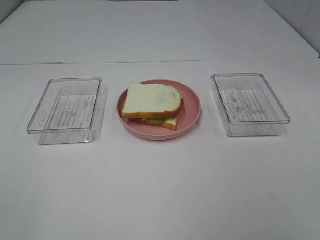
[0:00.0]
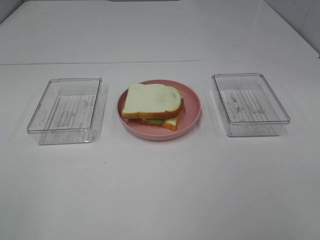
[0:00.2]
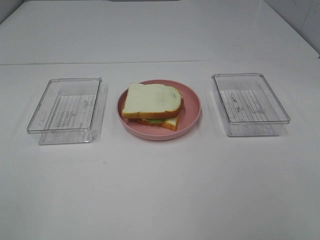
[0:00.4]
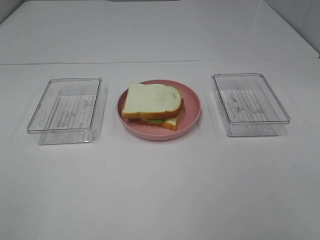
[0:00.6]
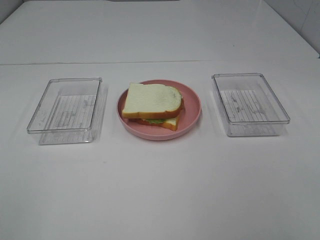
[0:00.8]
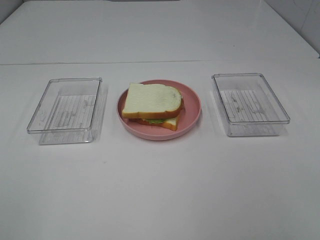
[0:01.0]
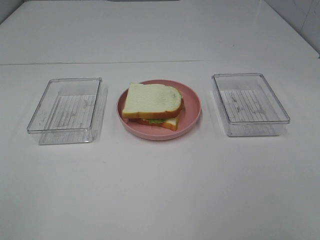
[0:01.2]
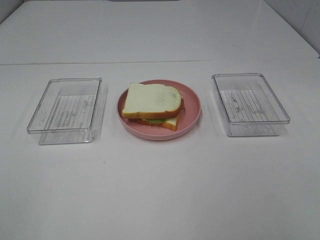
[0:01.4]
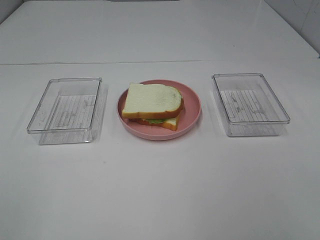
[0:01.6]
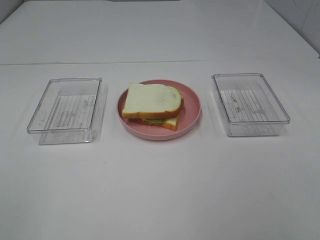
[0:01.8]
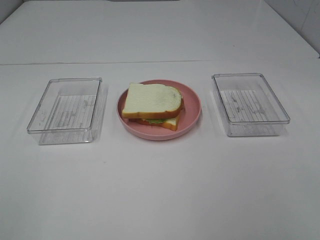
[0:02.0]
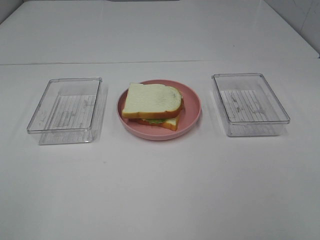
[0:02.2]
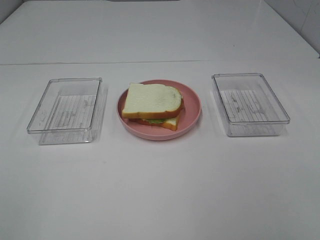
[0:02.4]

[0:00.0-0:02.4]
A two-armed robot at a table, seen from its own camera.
Task of the whole recording: Make sandwiches.
0:01.2 to 0:02.4: Both grippers stay put.

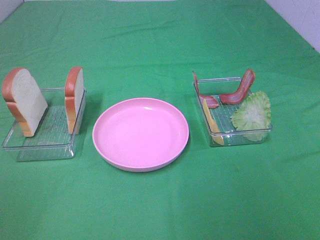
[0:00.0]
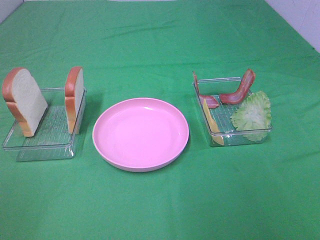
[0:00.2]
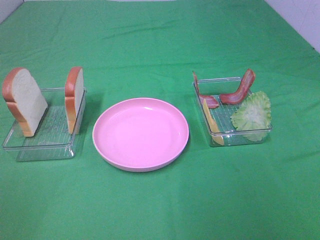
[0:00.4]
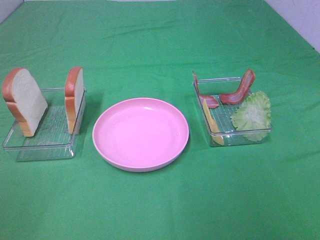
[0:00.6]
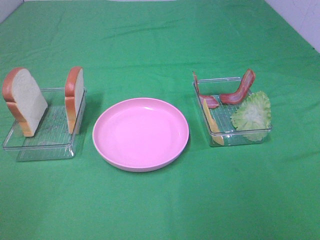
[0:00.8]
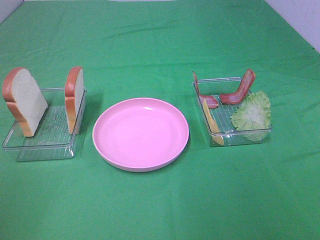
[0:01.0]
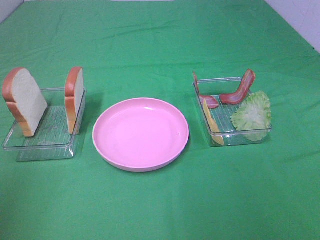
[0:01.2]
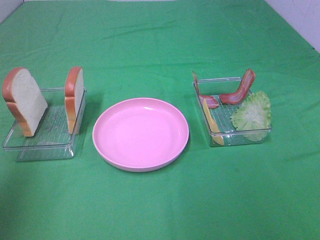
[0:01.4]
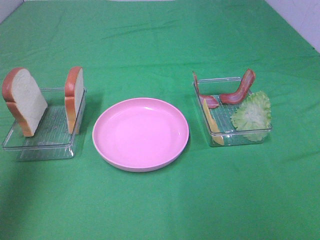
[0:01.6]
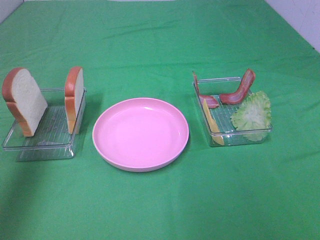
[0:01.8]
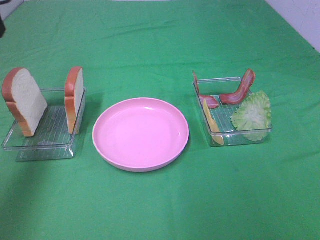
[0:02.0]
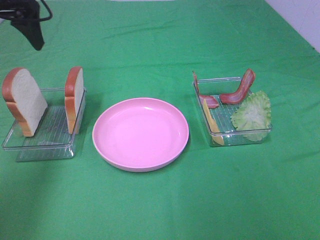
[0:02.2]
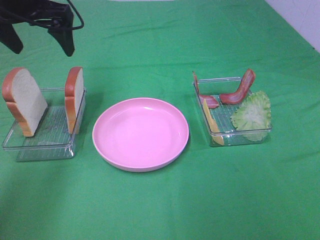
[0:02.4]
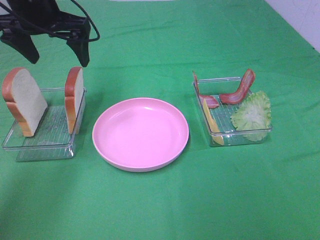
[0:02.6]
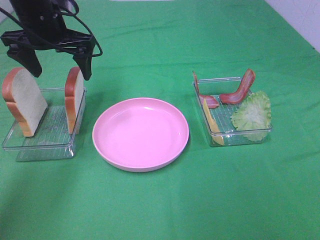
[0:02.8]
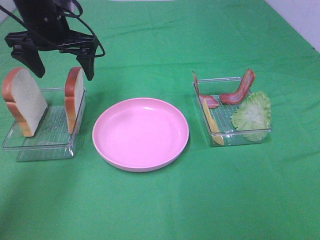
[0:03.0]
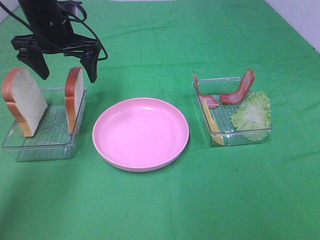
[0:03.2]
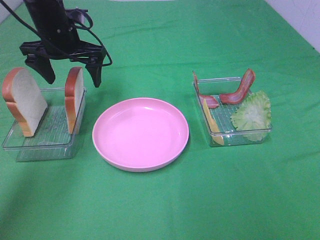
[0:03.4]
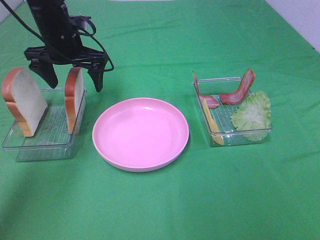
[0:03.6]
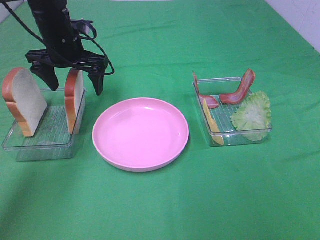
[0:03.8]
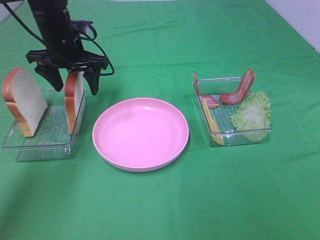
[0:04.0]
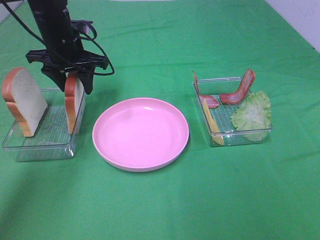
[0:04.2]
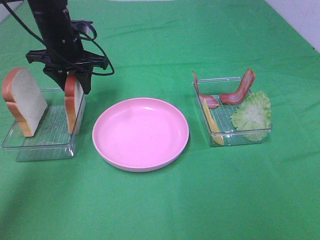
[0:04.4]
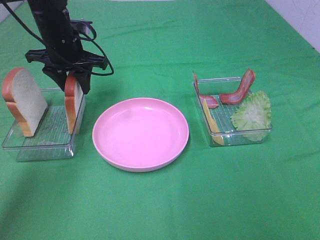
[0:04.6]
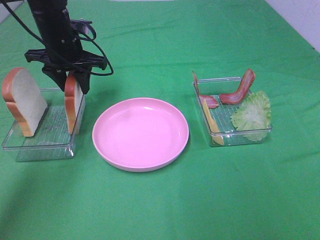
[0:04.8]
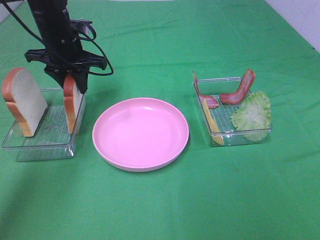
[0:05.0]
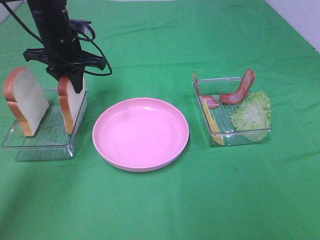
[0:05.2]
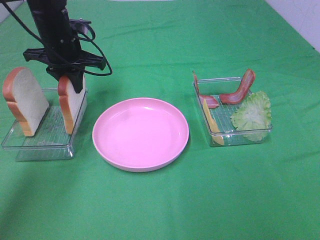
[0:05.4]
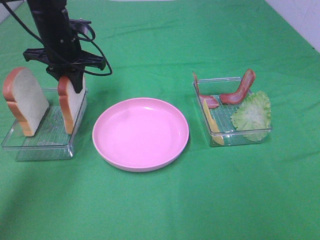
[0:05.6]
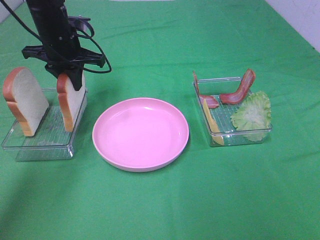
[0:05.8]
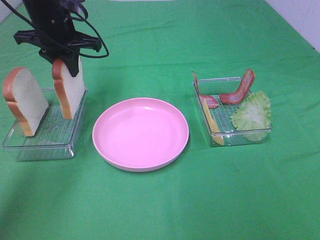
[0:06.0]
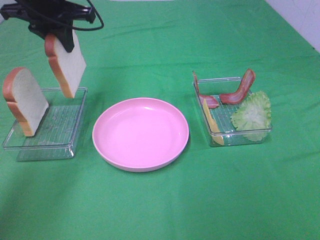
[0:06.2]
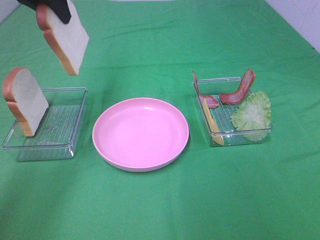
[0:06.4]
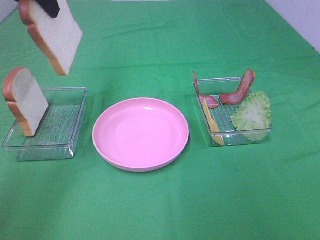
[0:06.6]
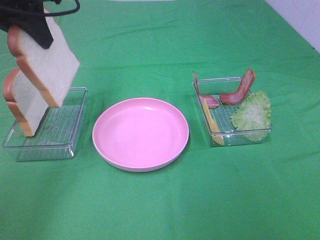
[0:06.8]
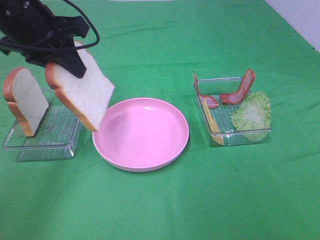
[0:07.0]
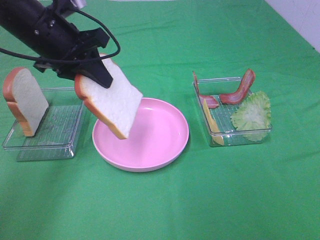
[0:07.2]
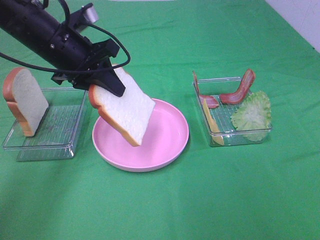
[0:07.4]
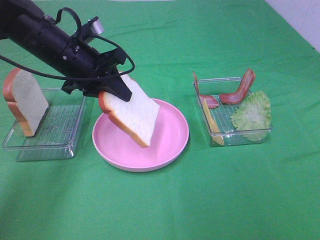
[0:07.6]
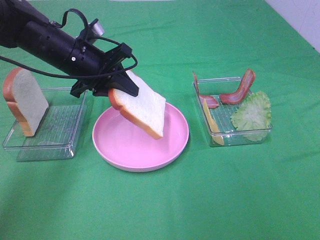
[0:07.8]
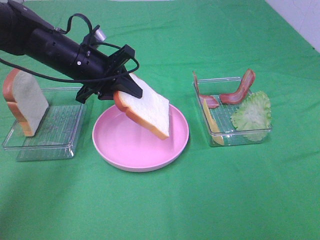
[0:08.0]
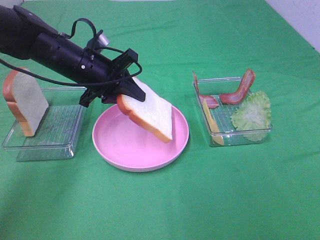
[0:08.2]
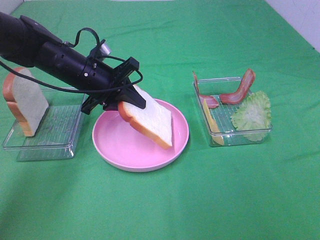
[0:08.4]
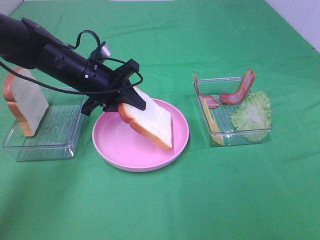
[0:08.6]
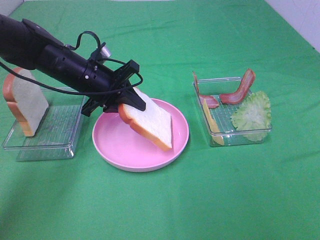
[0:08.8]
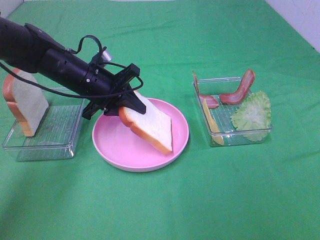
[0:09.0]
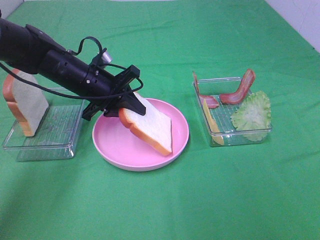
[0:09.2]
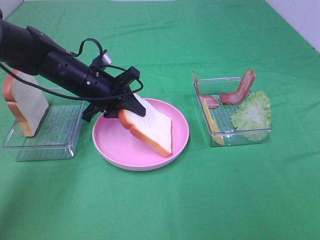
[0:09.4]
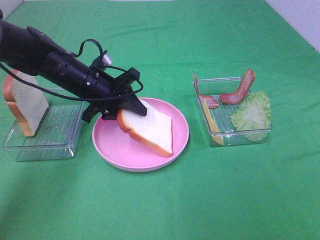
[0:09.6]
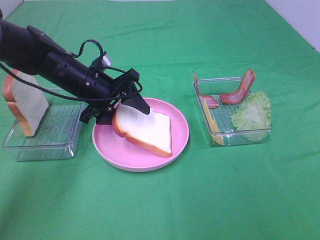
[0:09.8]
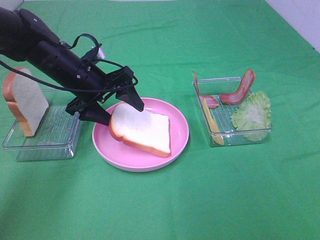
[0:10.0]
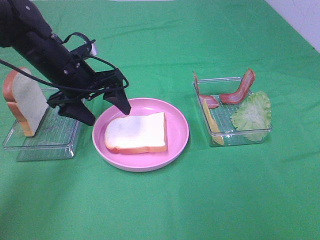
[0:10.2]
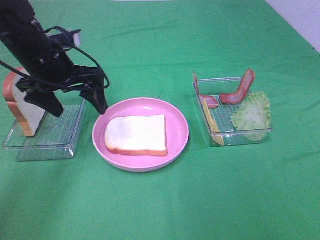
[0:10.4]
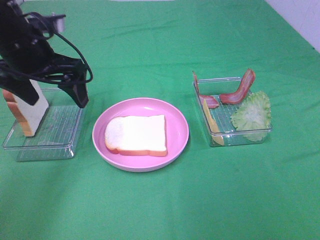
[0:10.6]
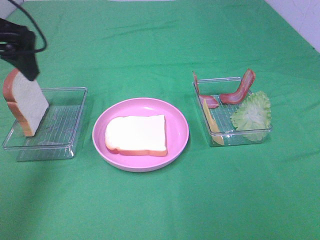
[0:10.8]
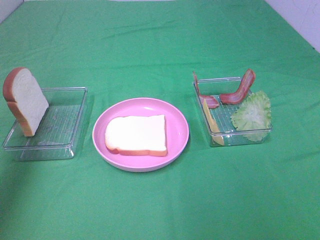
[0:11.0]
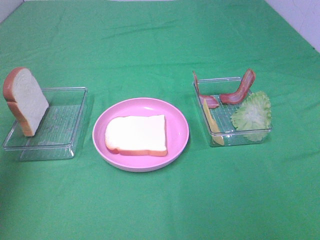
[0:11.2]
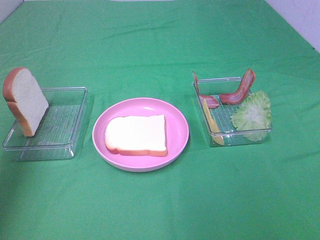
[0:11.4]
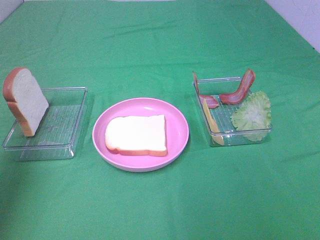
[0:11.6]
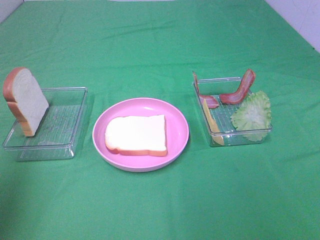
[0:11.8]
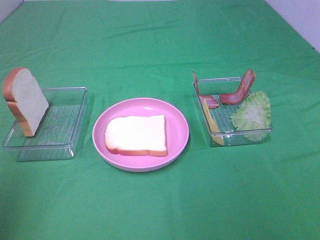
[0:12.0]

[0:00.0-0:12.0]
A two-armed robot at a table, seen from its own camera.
Task of the whole recording: Make sandwiches.
Step, 0:00.0 to 0:05.6: Left hand:grab the bread slice.
Step, 0:05.8 to 0:10.2: Left hand:place the bread slice on the plate.
0:00.0 to 0:01.6: The left gripper heads forward, covering some 25 cm.
0:01.6 to 0:03.0: The left gripper travels forward, downward and to the right by about 25 cm.
0:03.0 to 0:04.4: The left gripper ends up approximately 5 cm from where it was, and closes.
0:04.4 to 0:06.0: There are only small adjustments of the grippers.
0:06.0 to 0:07.6: The left gripper heads backward, covering approximately 5 cm, and moves roughly 15 cm upward and comes back.
0:07.6 to 0:09.0: The left gripper shifts approximately 5 cm downward.
0:09.0 to 0:10.4: The left gripper moves upward, some 5 cm, and opens up.
0:10.4 to 0:12.0: The left gripper shifts about 35 cm backward, to the left and upward.

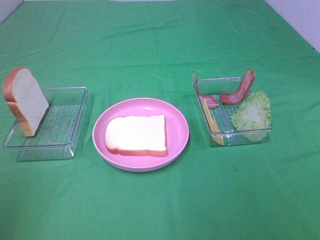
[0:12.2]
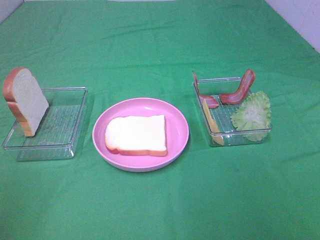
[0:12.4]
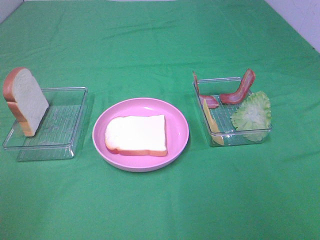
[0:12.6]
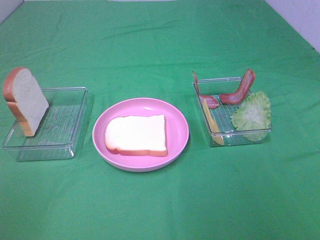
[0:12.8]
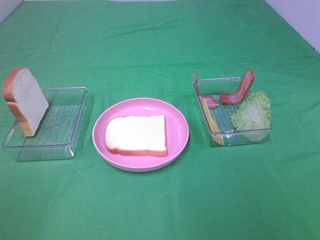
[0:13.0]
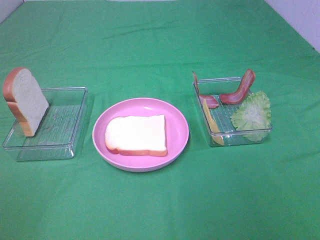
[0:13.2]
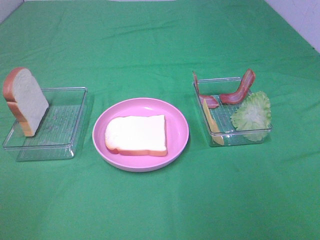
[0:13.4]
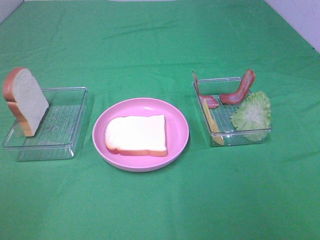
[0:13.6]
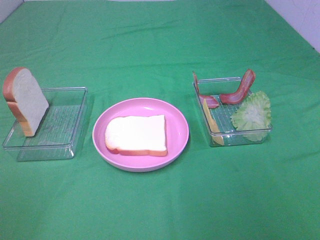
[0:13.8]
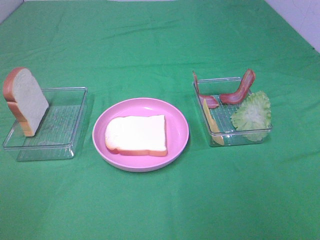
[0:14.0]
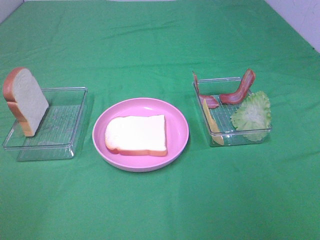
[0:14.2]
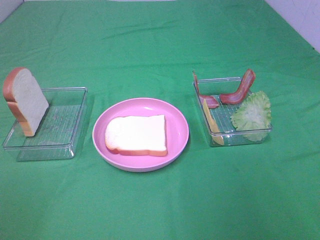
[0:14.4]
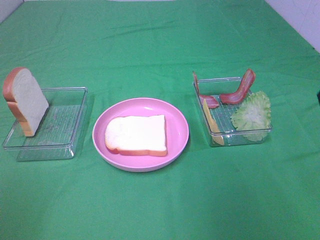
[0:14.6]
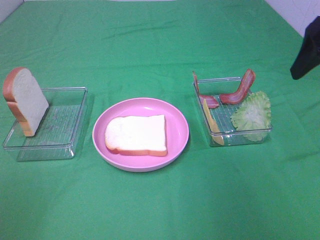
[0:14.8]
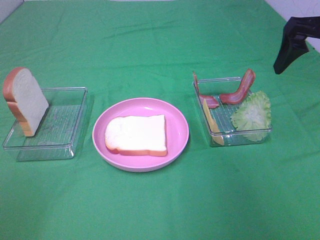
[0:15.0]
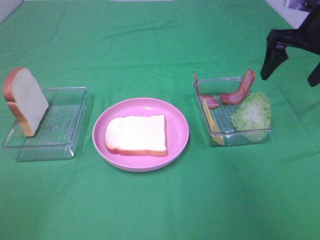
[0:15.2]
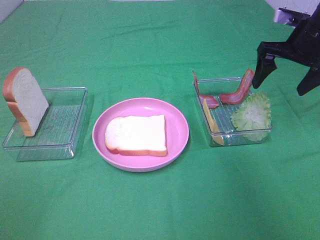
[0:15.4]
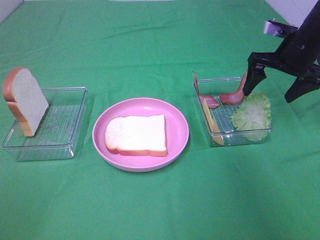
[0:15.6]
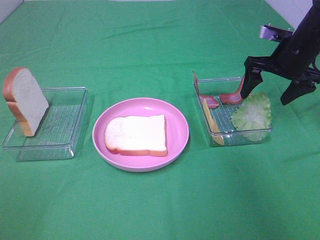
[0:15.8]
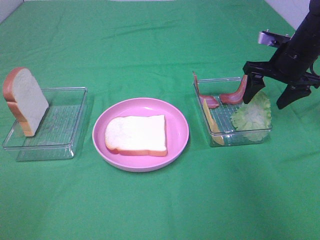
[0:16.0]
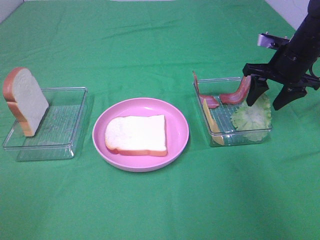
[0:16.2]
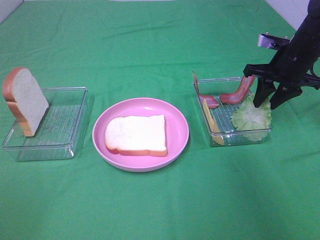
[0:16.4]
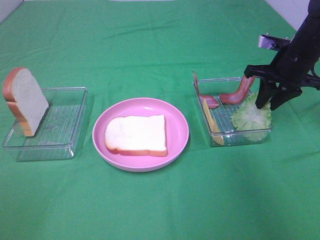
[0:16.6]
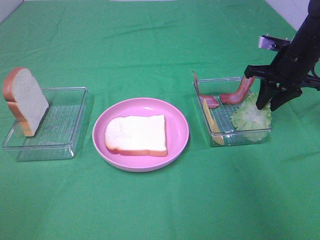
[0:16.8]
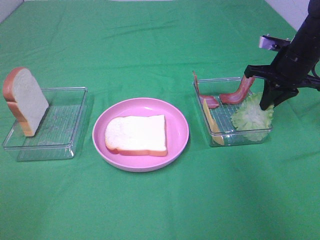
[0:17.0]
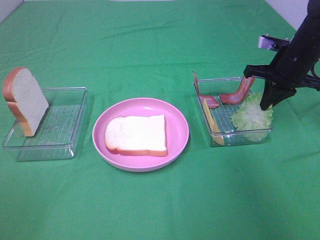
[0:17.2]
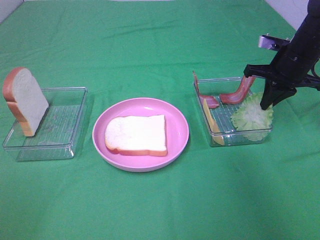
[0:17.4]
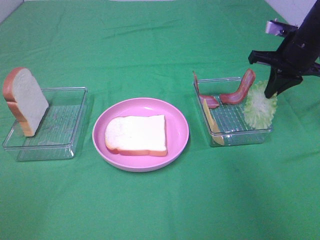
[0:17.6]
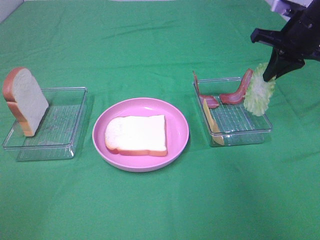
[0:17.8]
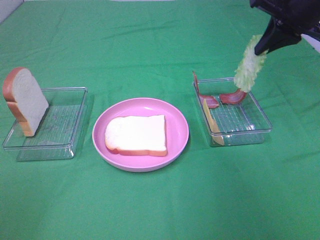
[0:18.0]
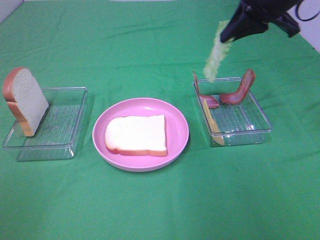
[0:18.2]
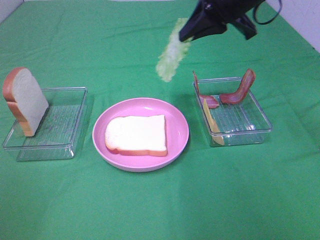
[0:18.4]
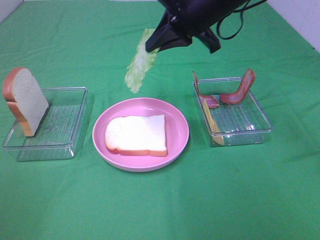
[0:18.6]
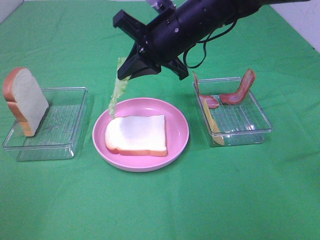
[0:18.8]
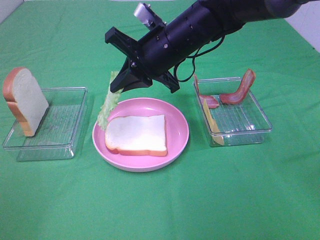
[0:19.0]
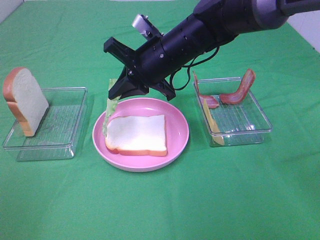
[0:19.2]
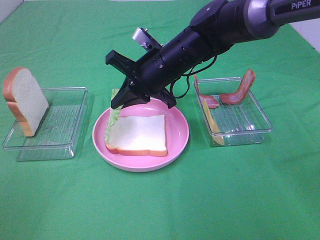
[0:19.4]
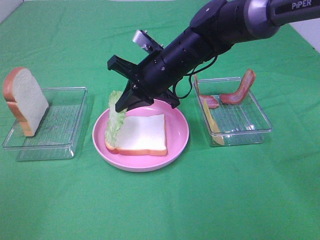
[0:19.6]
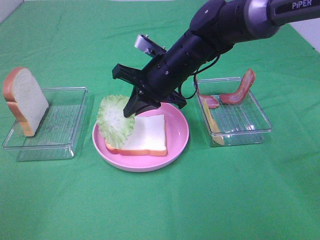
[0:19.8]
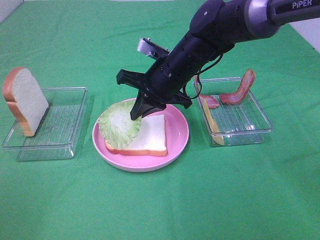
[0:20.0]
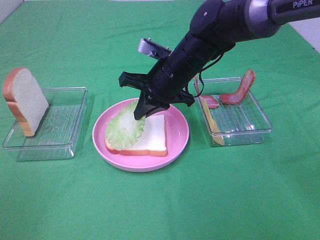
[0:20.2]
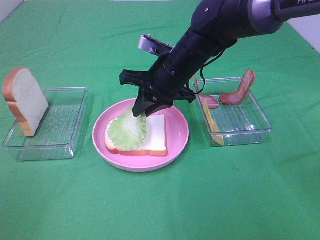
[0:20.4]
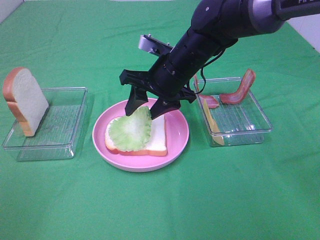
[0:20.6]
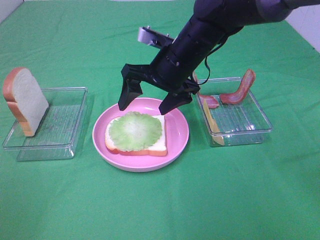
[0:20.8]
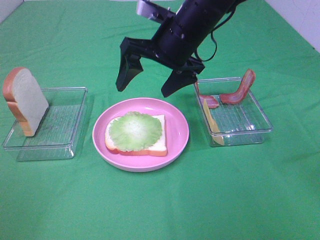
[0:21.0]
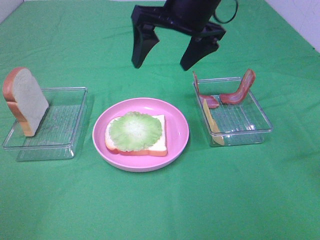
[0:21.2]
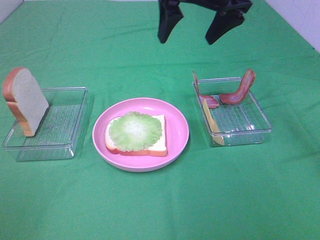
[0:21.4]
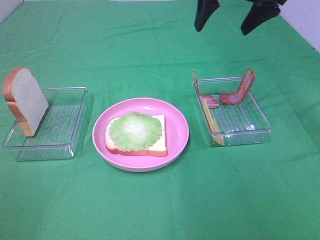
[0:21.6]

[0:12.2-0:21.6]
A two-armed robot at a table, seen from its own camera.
Task of the whole recording: Make sandwiches.
Step, 0:12.2 to 0:17.4: Right hand:grab the lettuce slice.
Step, 0:17.6 to 0:20.6: Right hand:place the lettuce slice on the bread slice.
0:13.8 to 0:15.4: The right gripper shifts about 40 cm forward.
0:15.4 to 0:17.0: The right gripper shifts roughly 5 cm downward, and closes.
0:17.0 to 0:18.4: The right gripper goes roughly 20 cm to the left and upward.
0:18.4 to 0:20.0: The right gripper shifts roughly 15 cm downward and to the left.
0:20.0 to 0:21.6: The right gripper moves upward and to the right, some 20 cm, and opens.
